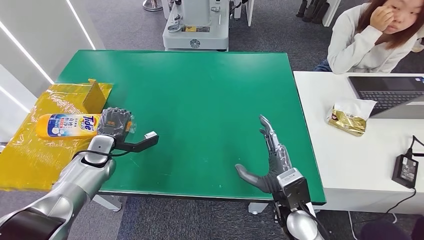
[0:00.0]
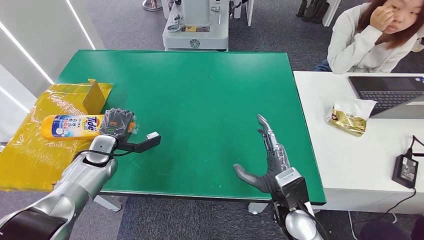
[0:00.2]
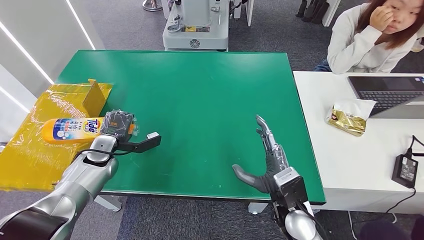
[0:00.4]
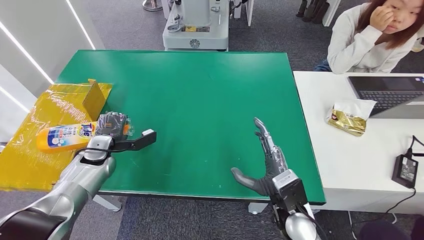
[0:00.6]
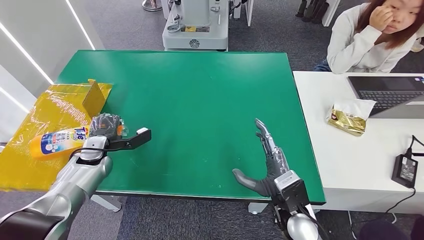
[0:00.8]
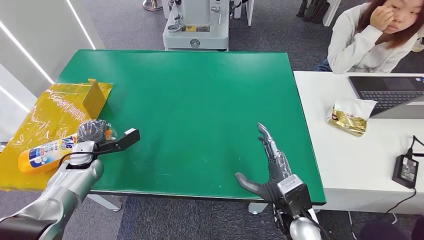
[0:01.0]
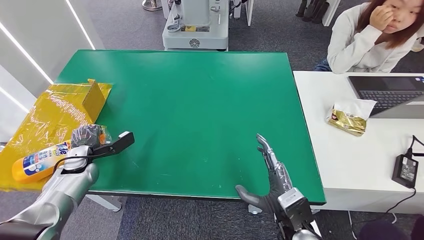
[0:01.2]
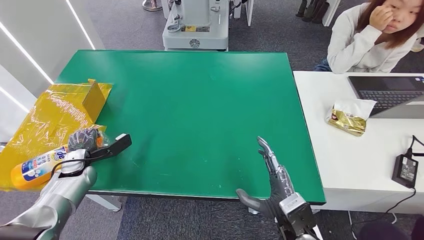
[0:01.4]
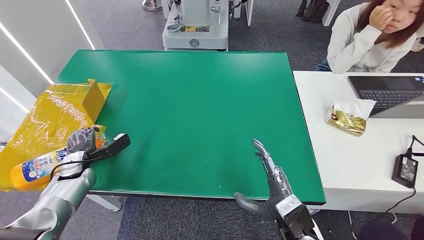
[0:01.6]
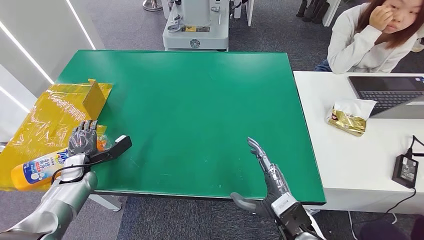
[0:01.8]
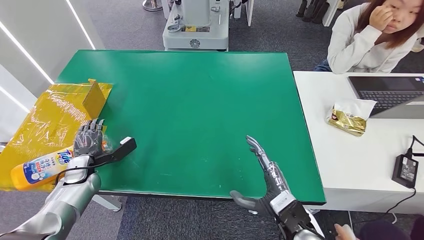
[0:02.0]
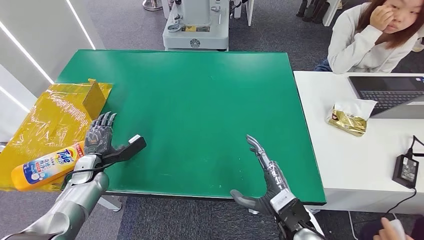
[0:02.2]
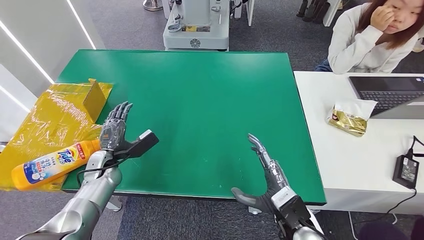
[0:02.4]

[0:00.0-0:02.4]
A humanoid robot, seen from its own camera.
Step, 0:00.0 to 0:02.4: Turn the bottle to the front side.
0:00.0 to 0:01.2: The left hand moves to the left, approximately 5 cm.
0:01.2 to 0:02.4: The left hand heads to the right, covering about 10 cm.
